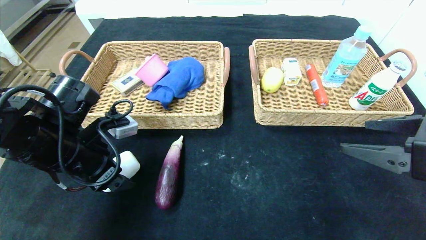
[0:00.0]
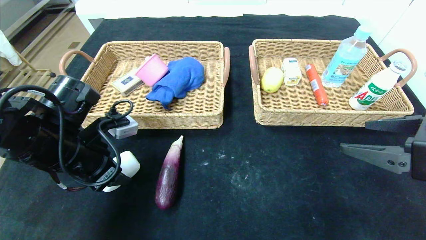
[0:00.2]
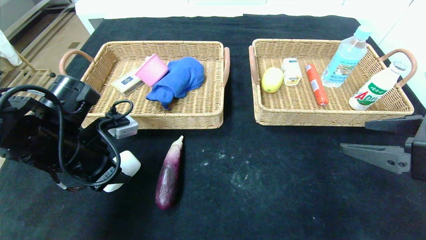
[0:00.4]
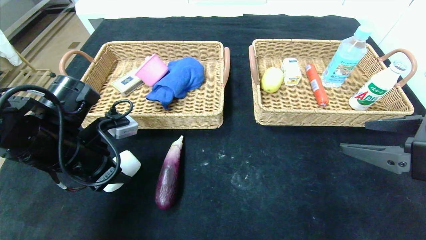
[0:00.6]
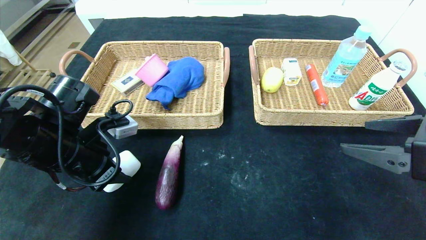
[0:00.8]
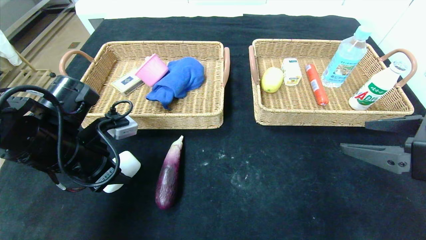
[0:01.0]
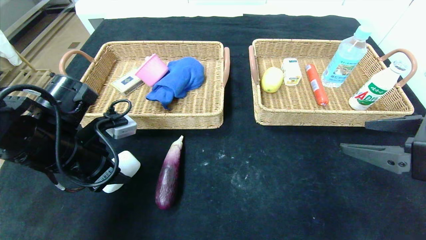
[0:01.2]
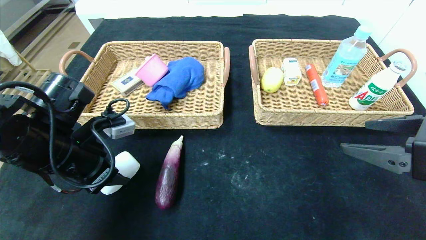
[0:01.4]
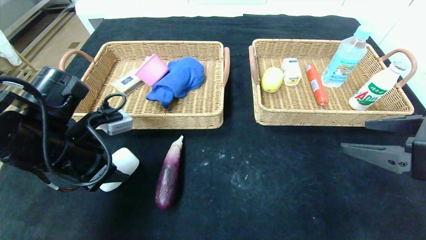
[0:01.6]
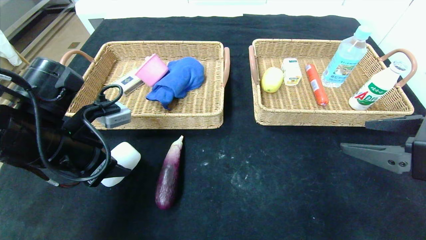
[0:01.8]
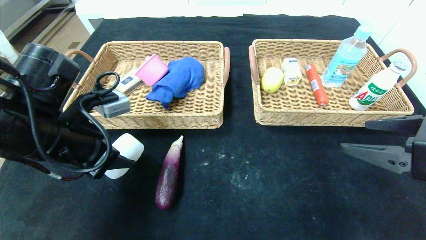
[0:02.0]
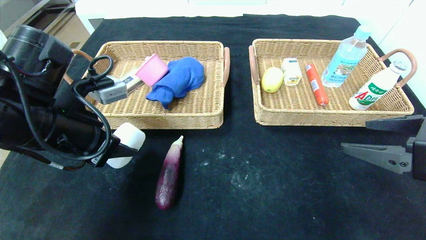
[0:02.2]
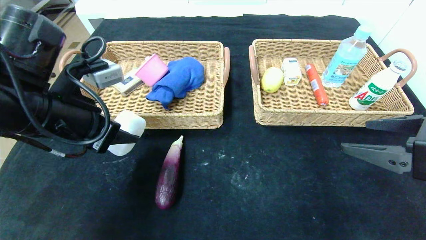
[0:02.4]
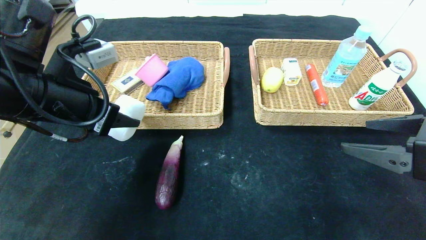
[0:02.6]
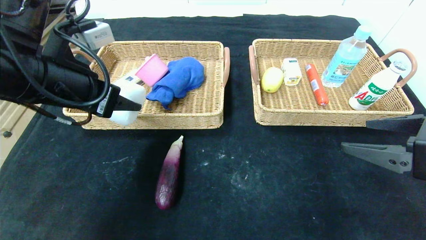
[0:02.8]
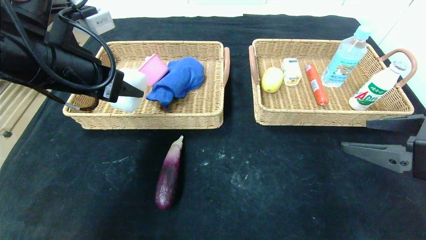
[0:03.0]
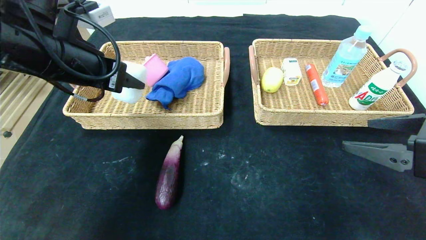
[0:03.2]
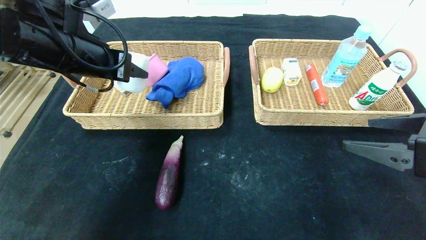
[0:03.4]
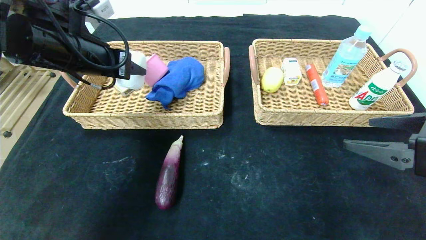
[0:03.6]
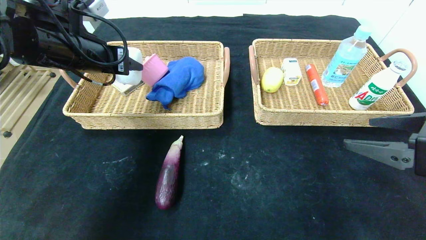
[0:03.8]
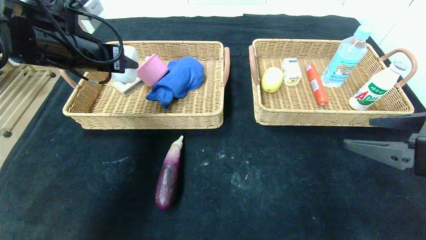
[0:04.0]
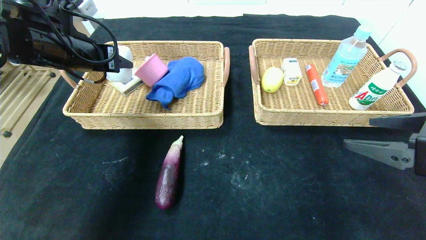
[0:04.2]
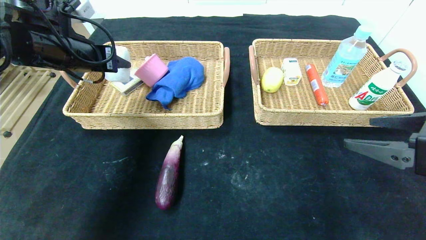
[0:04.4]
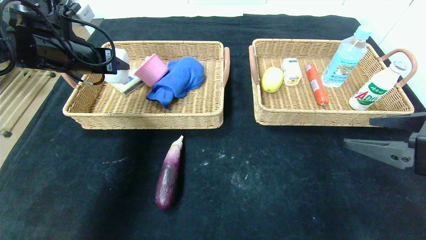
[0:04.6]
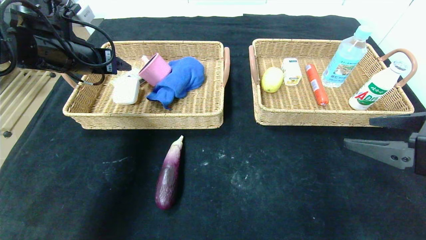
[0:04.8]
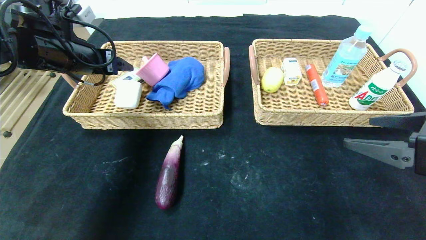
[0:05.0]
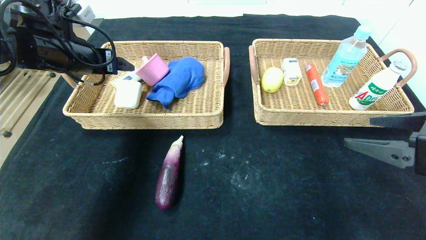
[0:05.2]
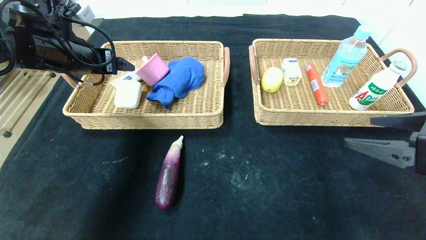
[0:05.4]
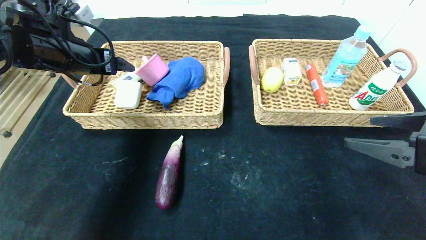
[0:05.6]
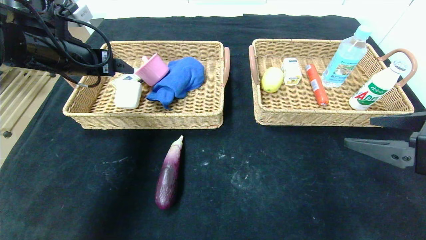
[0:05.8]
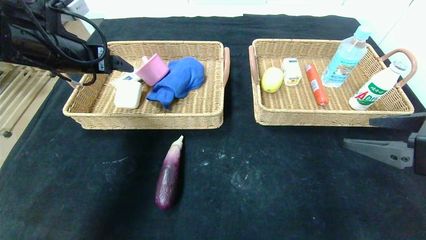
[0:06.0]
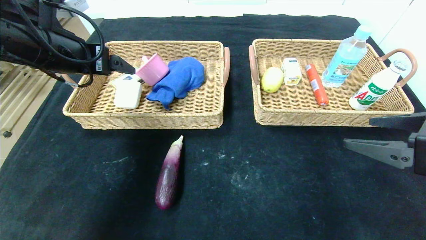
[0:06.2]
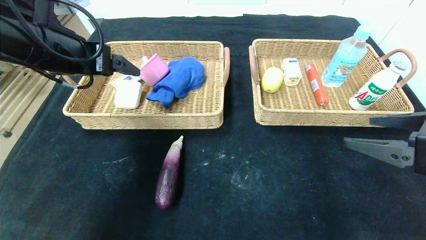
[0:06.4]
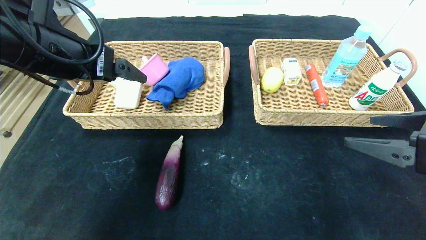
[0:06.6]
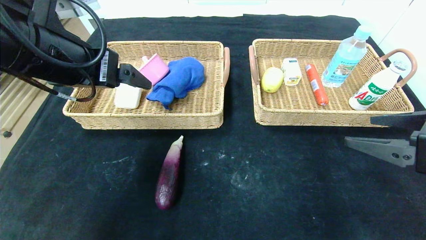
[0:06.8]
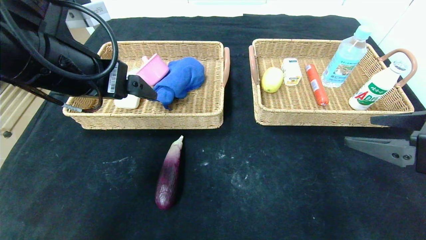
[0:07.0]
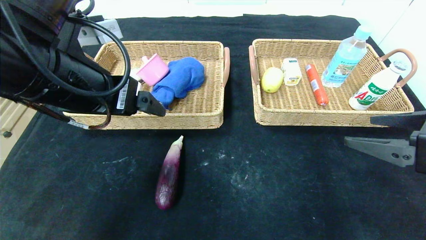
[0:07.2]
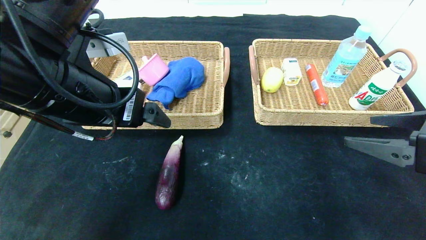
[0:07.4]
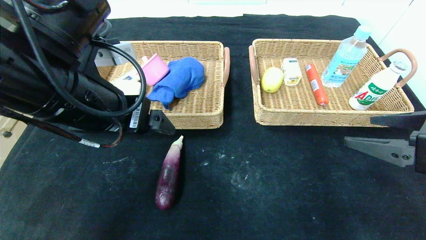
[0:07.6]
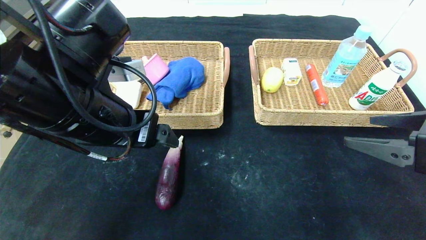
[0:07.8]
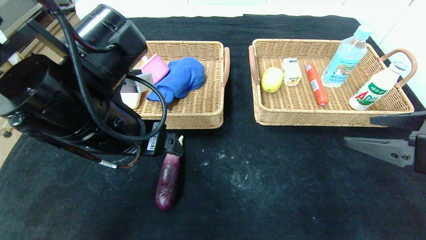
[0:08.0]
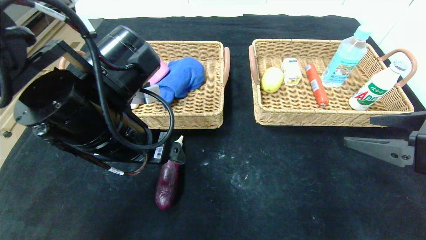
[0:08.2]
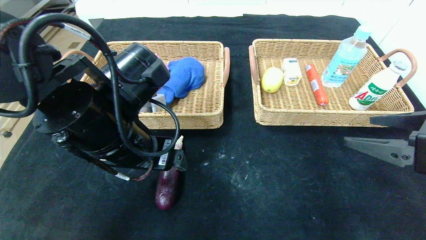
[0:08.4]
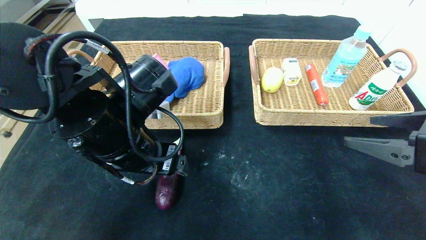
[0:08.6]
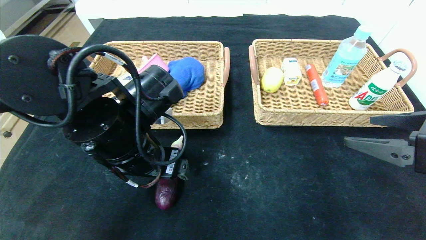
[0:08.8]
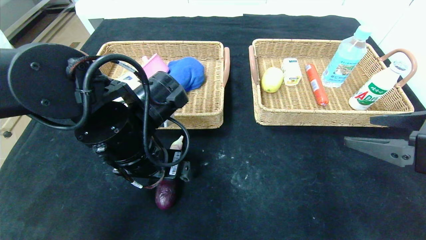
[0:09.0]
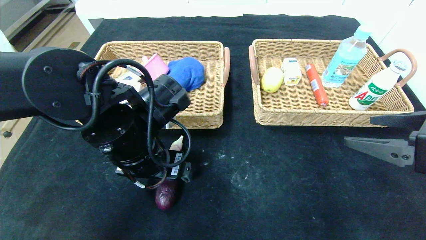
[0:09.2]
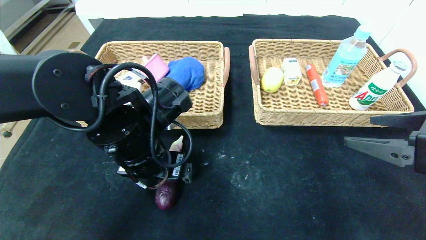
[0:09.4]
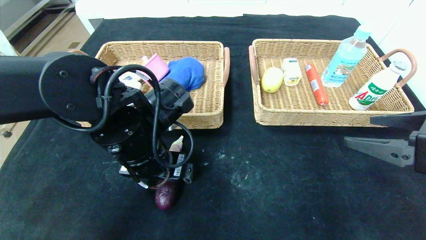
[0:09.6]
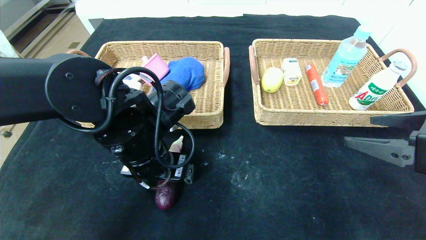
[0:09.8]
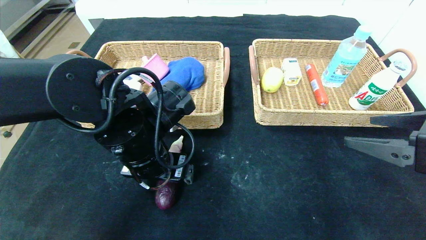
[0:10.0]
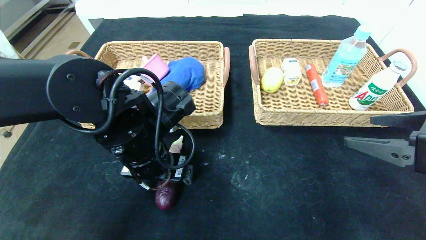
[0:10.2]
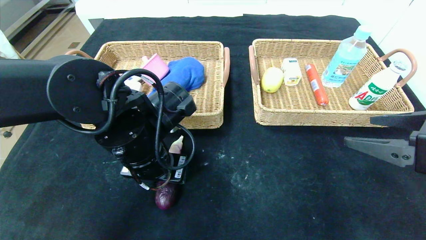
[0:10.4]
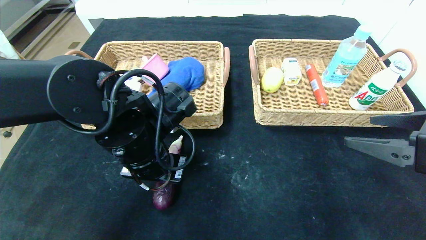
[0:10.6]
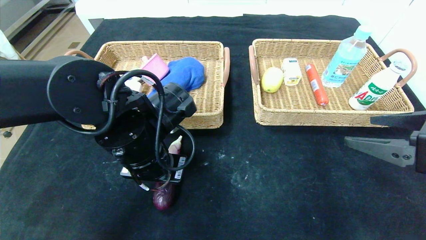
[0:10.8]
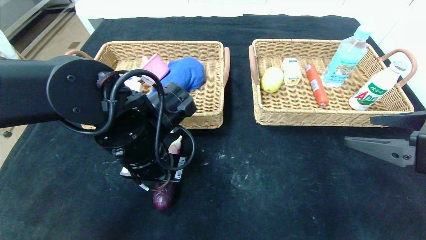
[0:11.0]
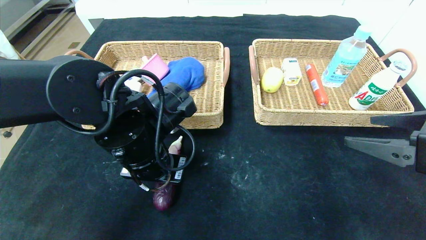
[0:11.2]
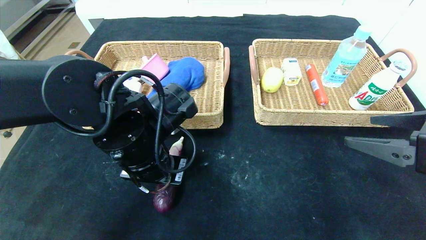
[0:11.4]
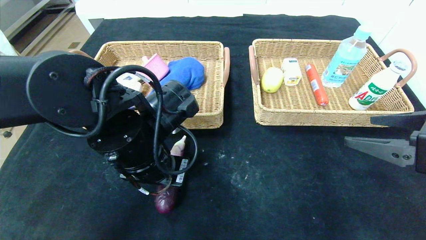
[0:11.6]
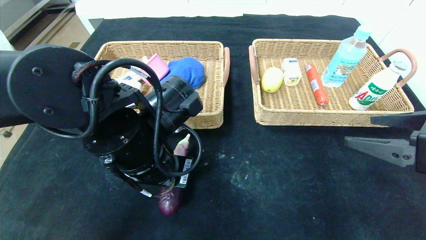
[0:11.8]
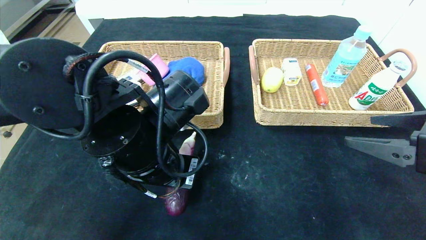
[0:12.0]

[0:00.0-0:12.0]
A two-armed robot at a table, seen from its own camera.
Step, 0:00.0 to 0:05.0: Grasp the soap and put it in the left basket.
0:00.0 to 0:01.6: The left gripper closes up.
0:01.6 to 0:03.0: The left gripper shifts about 10 cm upward.
0:03.0 to 0:04.4: The left gripper heads forward and to the left, covering roughly 10 cm.
0:04.4 to 0:06.0: The left gripper opens.
0:06.0 to 0:07.6: The left gripper shifts some 15 cm to the right and backward.
0:07.6 to 0:09.0: The left gripper moves downward, some 10 cm.
0:09.0 to 0:10.4: The left gripper closes.
0:10.4 to 0:12.0: The grippers make only small movements.

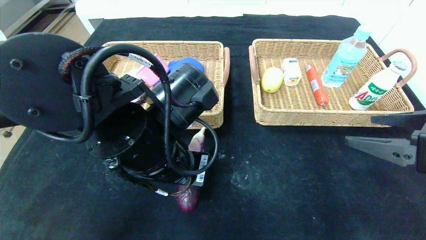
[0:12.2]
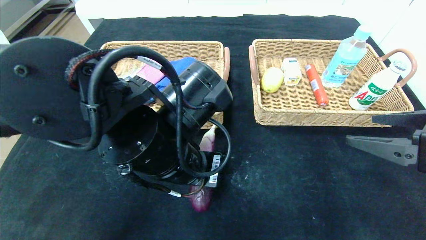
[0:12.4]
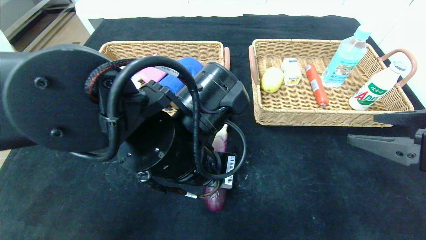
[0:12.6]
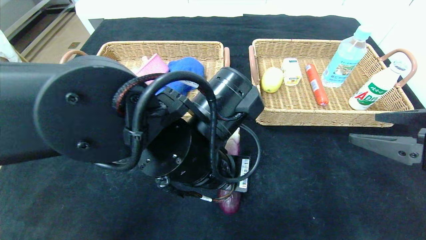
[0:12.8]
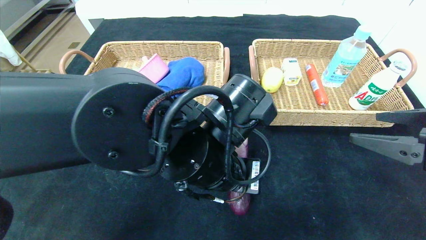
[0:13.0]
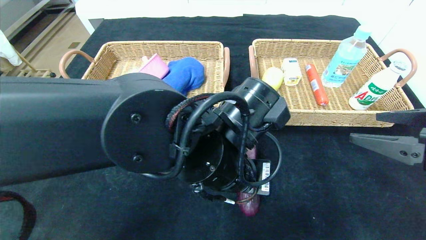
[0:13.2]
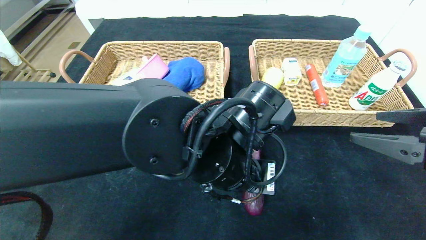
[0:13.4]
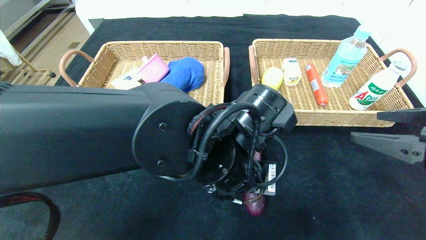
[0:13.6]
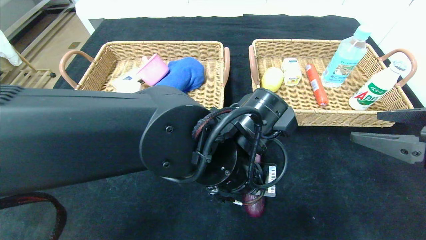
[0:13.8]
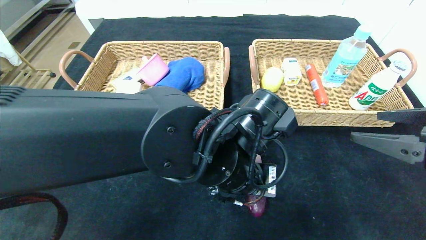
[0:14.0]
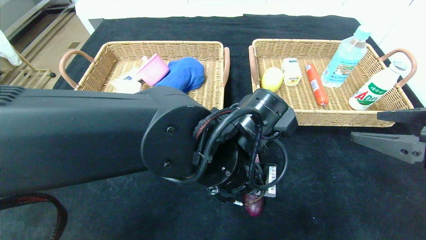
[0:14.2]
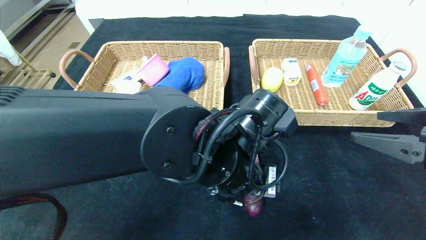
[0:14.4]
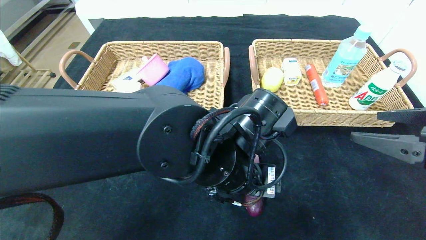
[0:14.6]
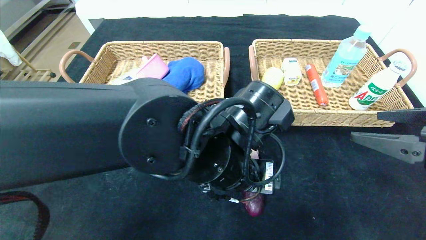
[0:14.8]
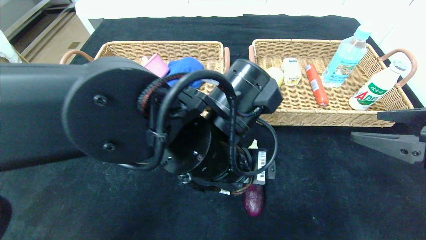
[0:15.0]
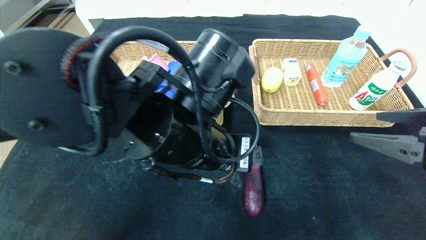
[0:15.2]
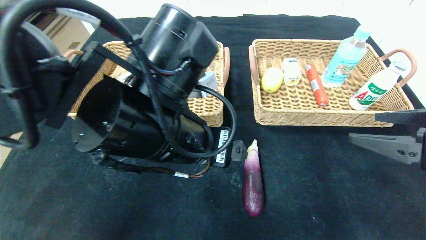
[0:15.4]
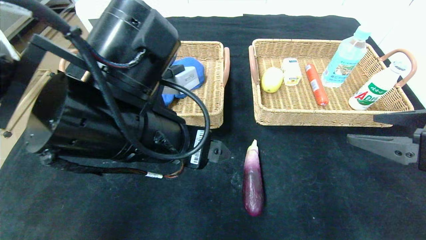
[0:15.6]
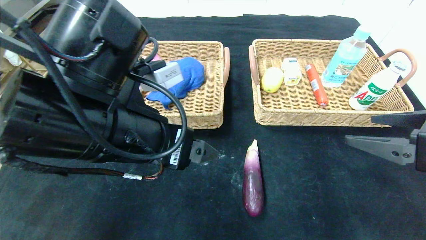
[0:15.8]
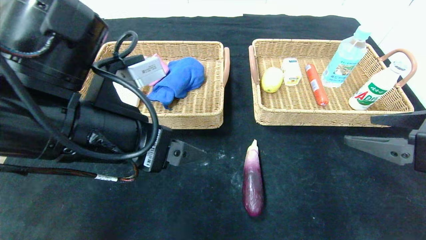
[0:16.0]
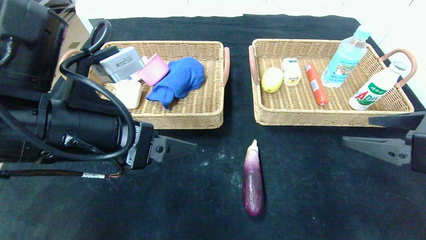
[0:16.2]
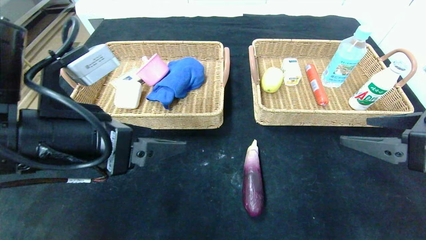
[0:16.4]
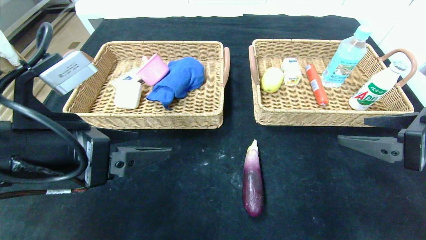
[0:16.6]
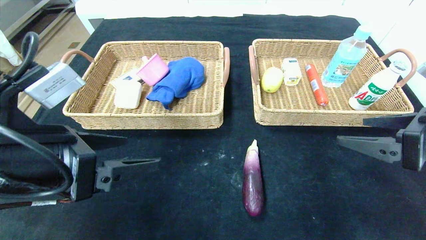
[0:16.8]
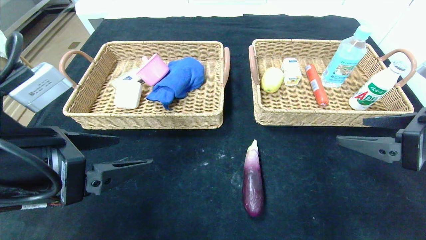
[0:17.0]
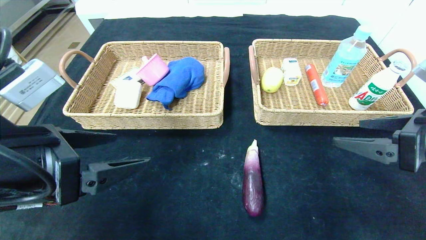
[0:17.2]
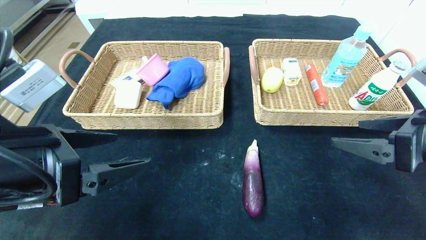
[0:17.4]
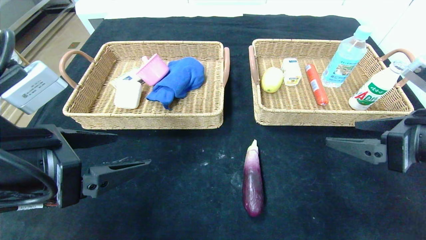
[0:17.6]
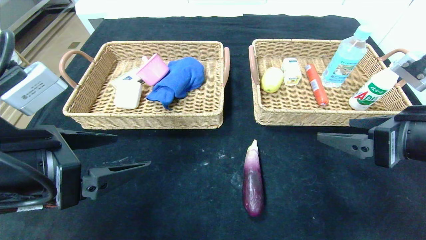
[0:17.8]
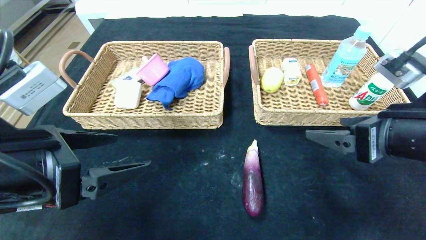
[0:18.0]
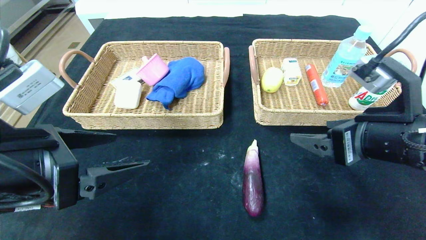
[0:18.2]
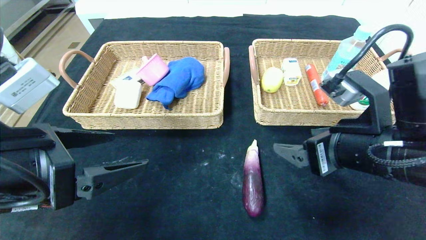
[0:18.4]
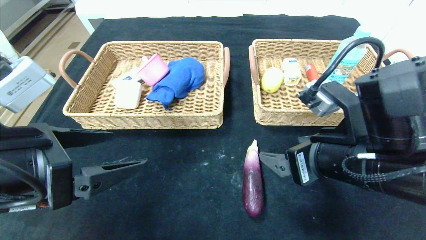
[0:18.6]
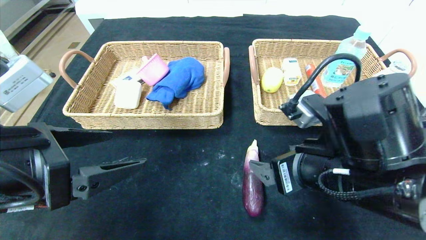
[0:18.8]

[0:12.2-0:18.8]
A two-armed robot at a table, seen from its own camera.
Step, 0:12.2 to 0:15.6: Place the eggplant in the center of the table.
0:12.2 to 0:13.8: The left gripper is displaced to the right by about 10 cm.
0:13.8 to 0:15.4: The left gripper shifts some 10 cm to the left and upward, and opens up.
0:15.4 to 0:17.2: The left gripper moves to the left, approximately 15 cm.
0:17.2 to 0:18.8: The right gripper shifts roughly 15 cm to the left.
